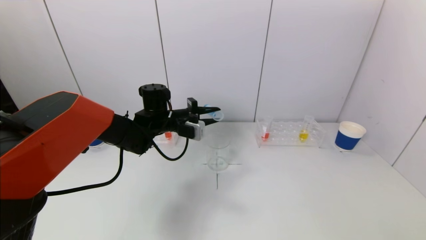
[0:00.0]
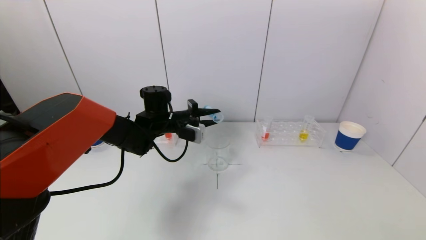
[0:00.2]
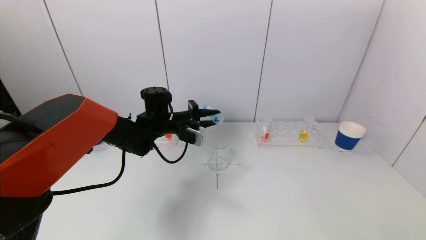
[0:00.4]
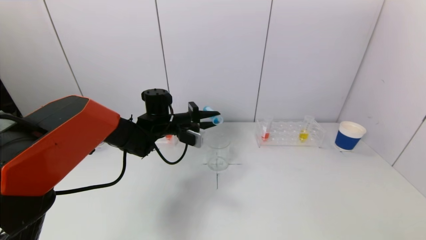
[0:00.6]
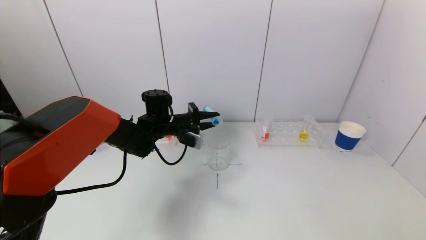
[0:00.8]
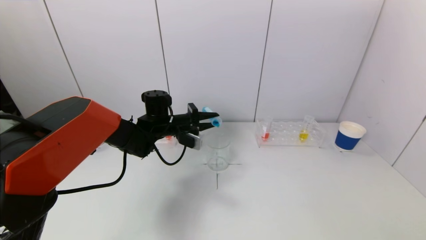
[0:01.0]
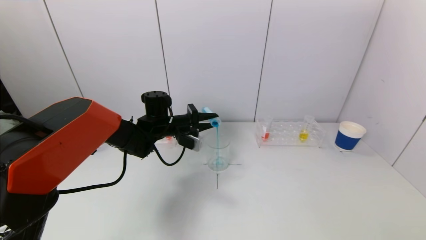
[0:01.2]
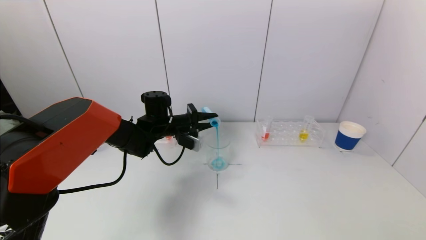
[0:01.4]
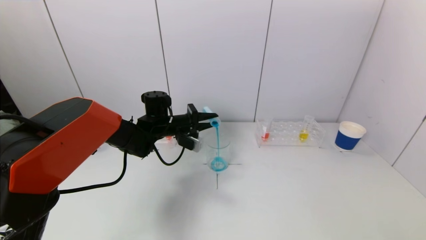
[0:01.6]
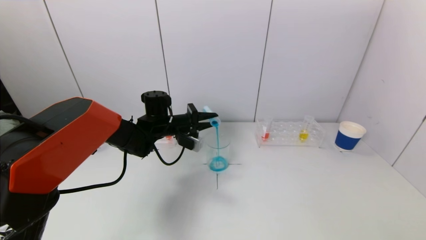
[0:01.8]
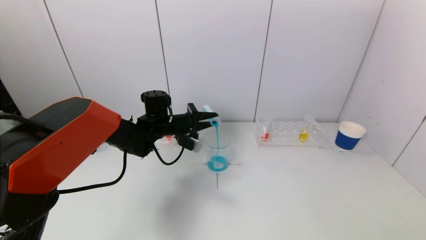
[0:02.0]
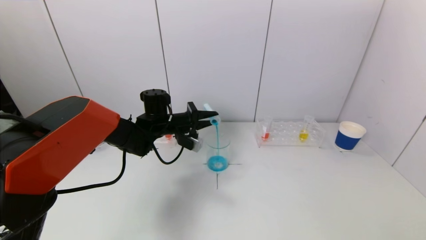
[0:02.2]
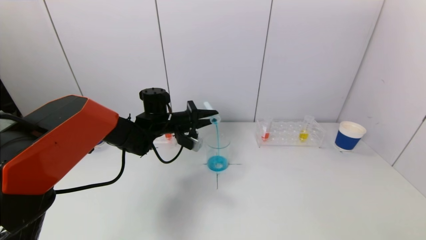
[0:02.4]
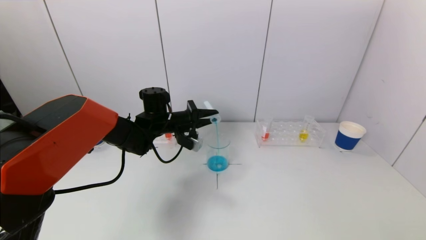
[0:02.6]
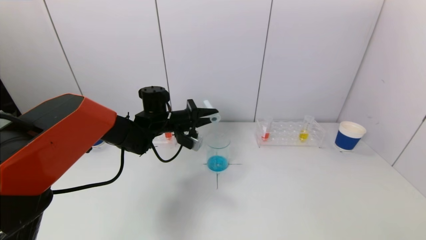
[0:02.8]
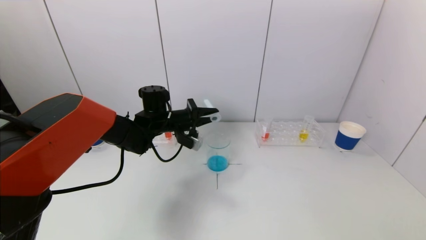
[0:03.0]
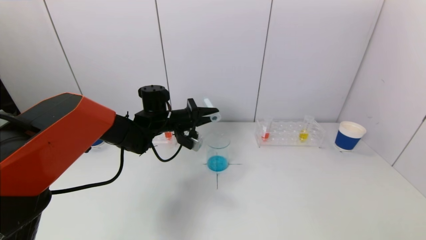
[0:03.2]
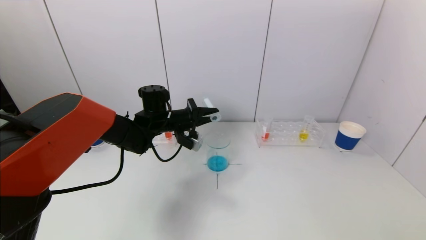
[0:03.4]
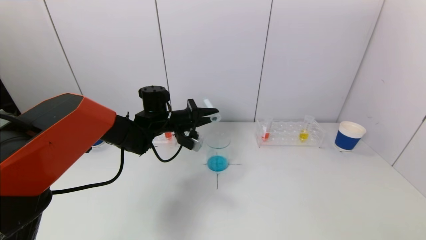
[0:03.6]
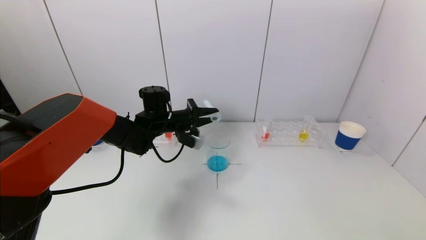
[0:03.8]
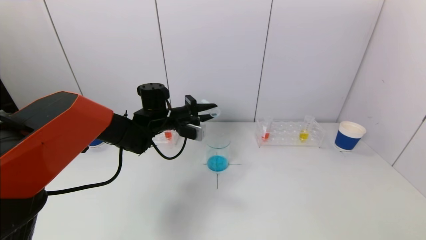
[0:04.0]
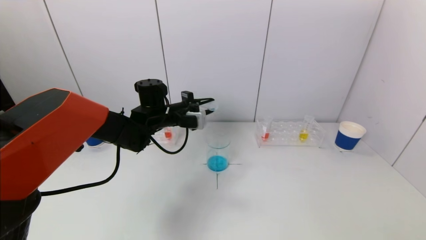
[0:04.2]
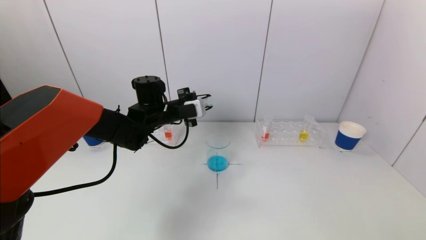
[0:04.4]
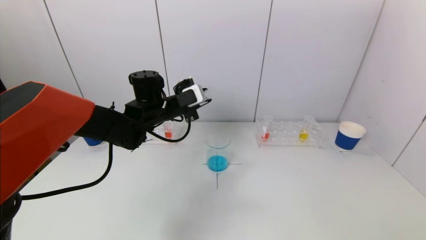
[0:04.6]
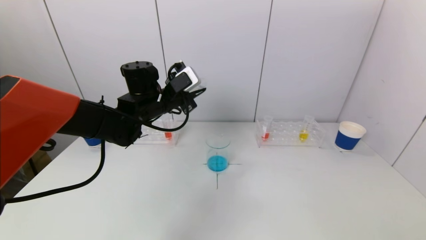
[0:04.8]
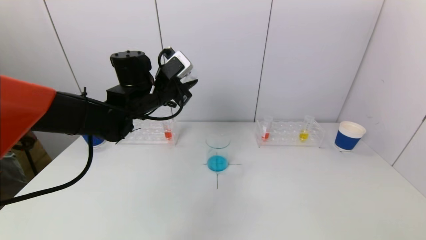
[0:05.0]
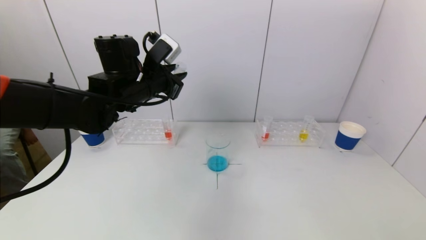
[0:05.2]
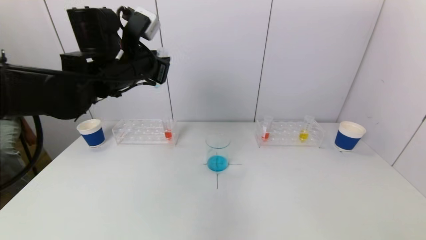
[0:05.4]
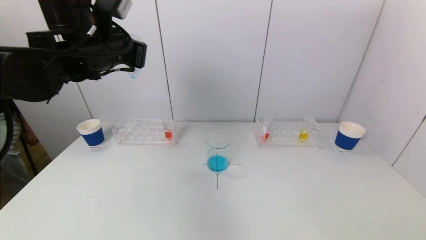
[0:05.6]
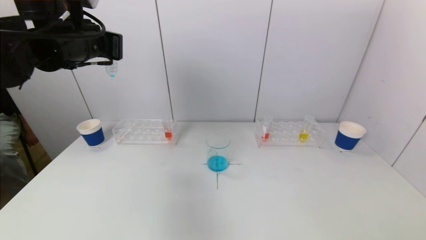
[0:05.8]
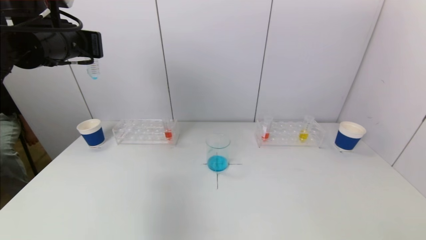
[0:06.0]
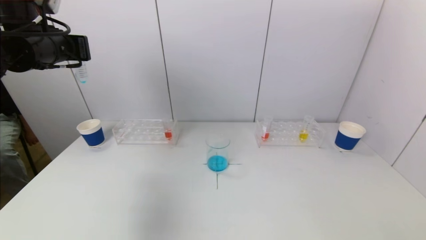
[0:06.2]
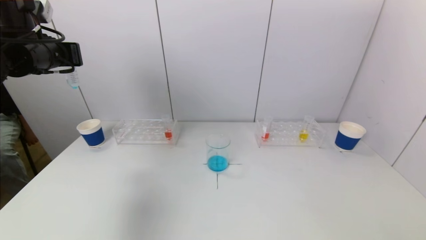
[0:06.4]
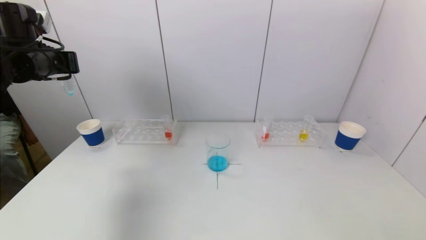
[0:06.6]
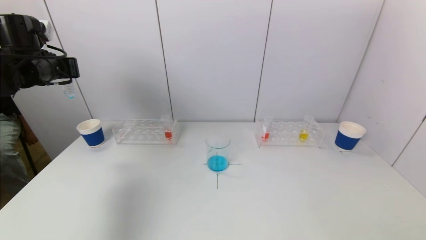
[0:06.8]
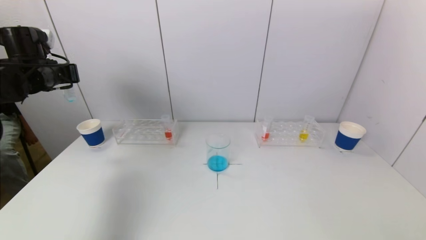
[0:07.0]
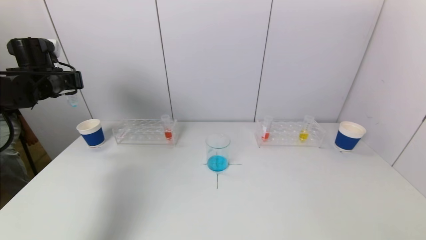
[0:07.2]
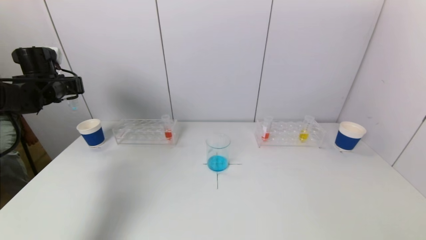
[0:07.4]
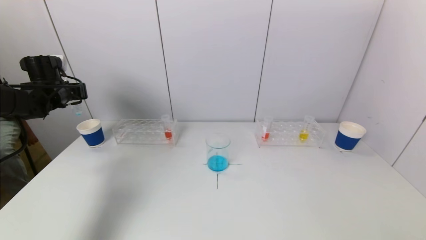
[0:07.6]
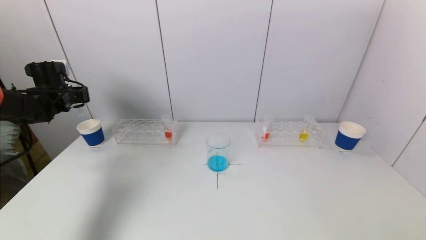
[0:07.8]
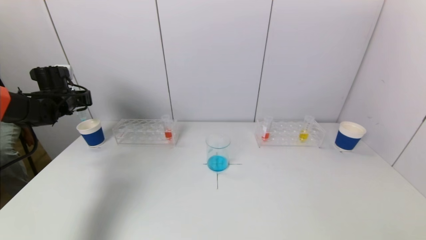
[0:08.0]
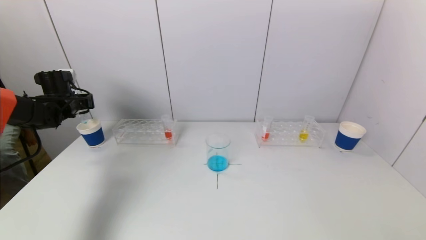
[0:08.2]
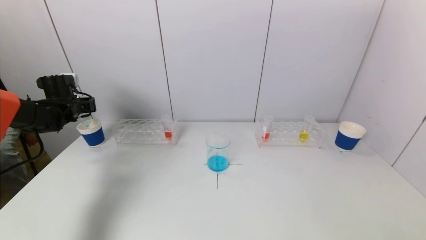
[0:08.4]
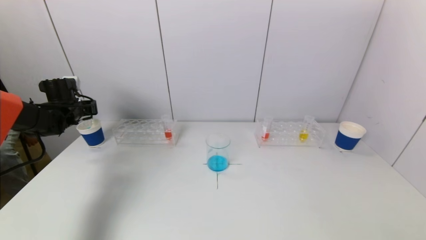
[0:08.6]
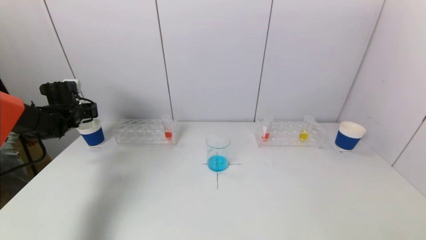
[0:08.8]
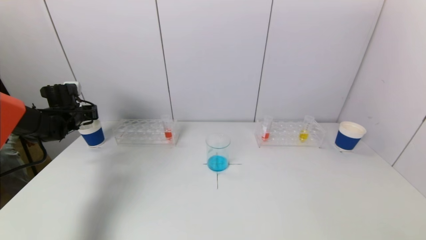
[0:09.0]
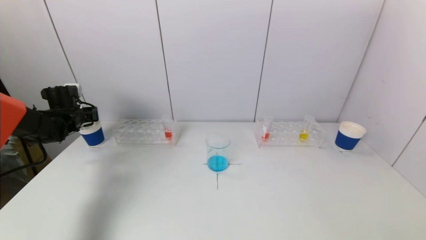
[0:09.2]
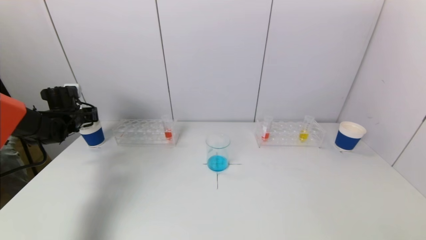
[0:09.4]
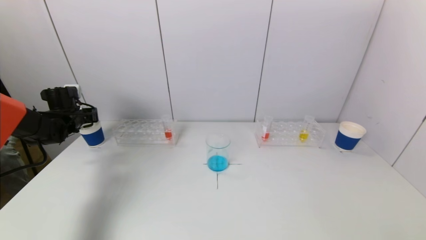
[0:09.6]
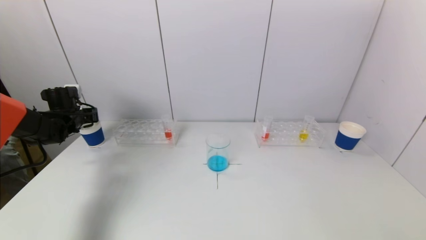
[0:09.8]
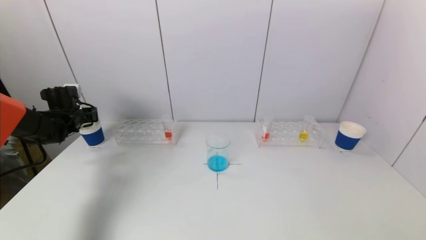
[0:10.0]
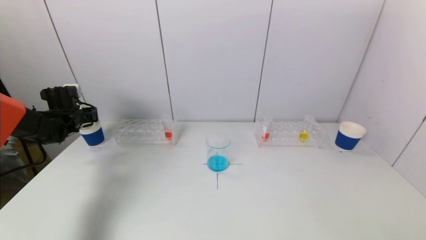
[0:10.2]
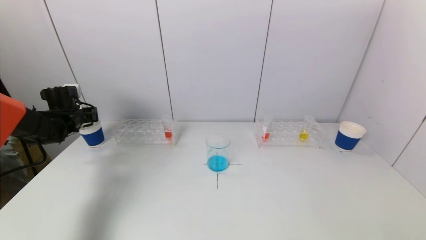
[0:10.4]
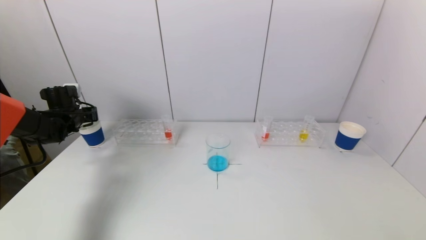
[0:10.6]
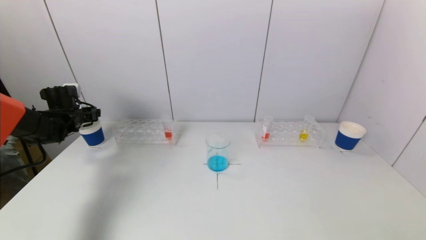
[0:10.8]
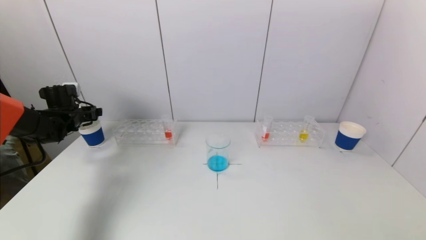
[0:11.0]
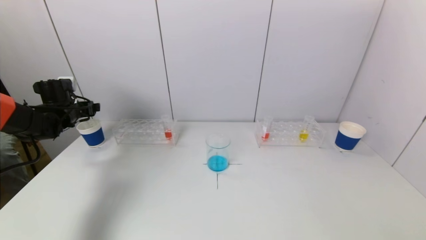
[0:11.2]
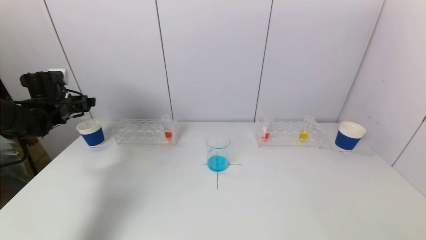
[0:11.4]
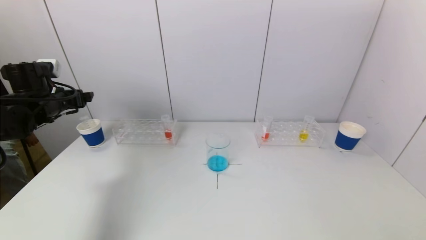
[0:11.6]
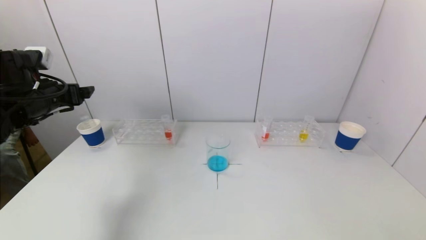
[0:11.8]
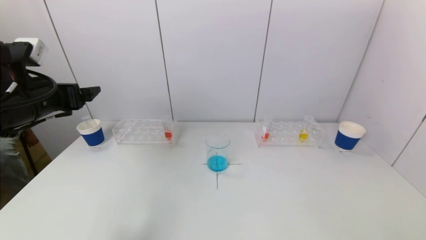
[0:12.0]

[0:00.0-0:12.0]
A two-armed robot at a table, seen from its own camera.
Task of the whole recording: pick up a test tube with pigment on left test tube rack and a test tube with pigment on right test tube rack by grippers and pour them into the beaker.
Step, 0:00.0 to 0:03.8: Pour the blue reagent into the graduated cylinder with the left gripper.
Step, 0:04.0 to 0:10.6: Place the test tube into the paper cup with the left gripper.
0:00.0 to 0:01.6: The grippers move only a little.
0:01.6 to 0:03.0: The grippers stay close to where they were, moving slightly.
0:04.4 to 0:06.0: The left gripper goes about 25 cm upward, to the left and backward.
0:06.0 to 0:07.6: The left gripper shifts about 20 cm to the left, downward and forward.
0:07.6 to 0:09.0: The left gripper moves downward, approximately 10 cm.
0:09.0 to 0:10.4: Both grippers stay put.
0:10.4 to 0:12.0: The left gripper is displaced backward, upward and to the right by approximately 25 cm, and opens its fingers.

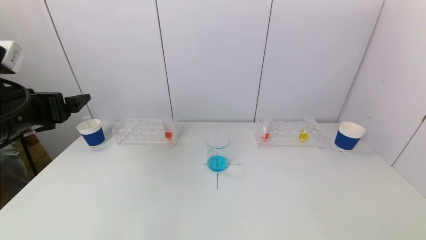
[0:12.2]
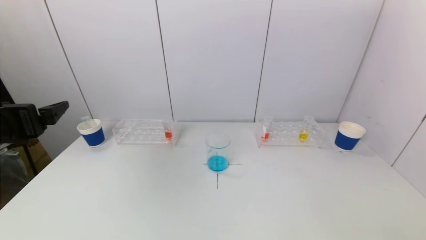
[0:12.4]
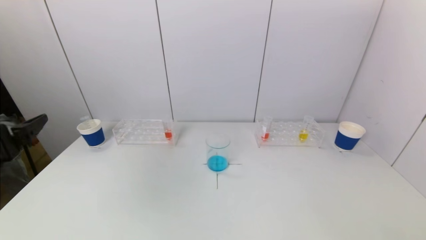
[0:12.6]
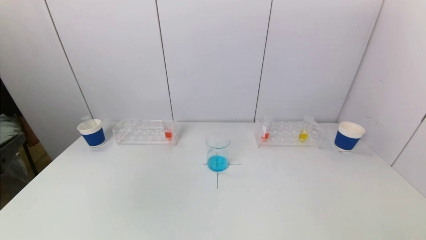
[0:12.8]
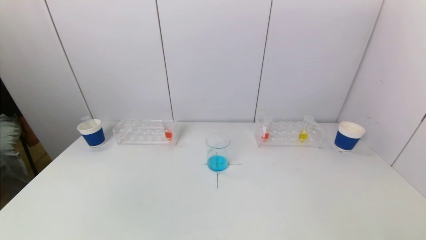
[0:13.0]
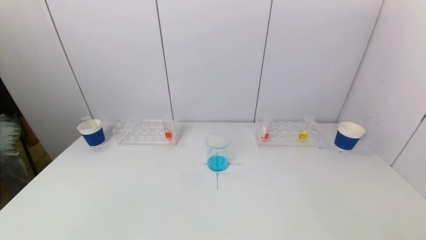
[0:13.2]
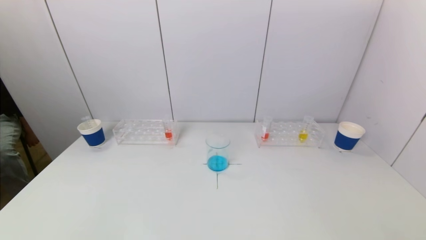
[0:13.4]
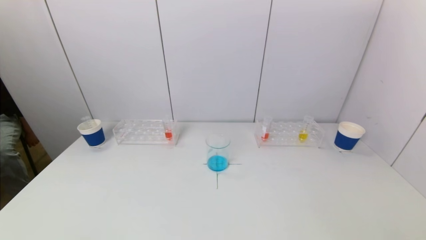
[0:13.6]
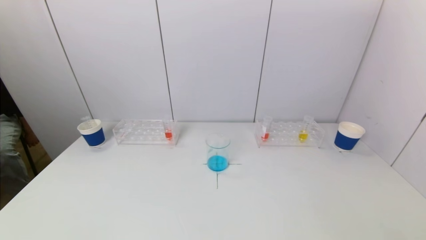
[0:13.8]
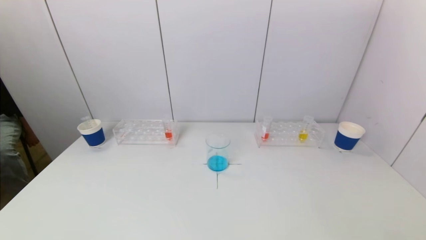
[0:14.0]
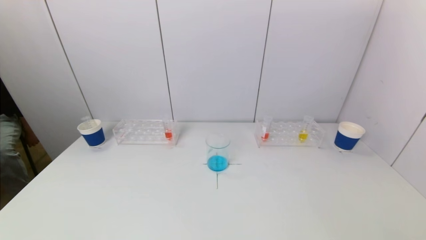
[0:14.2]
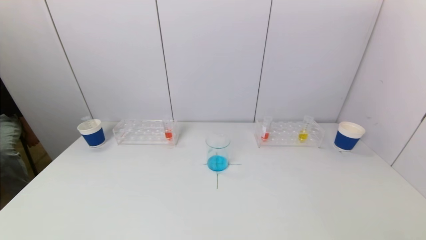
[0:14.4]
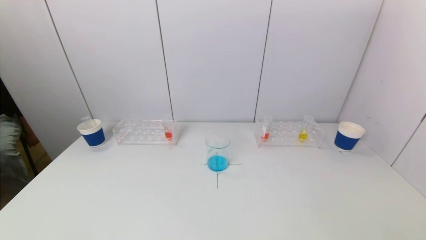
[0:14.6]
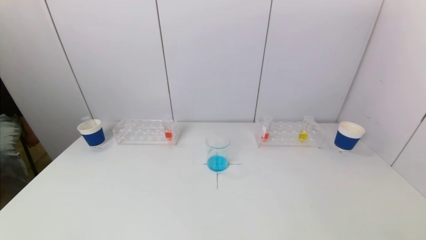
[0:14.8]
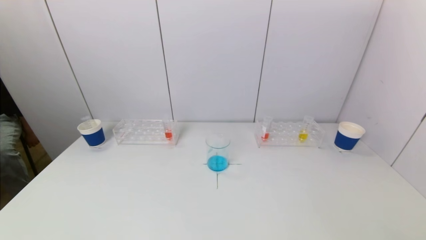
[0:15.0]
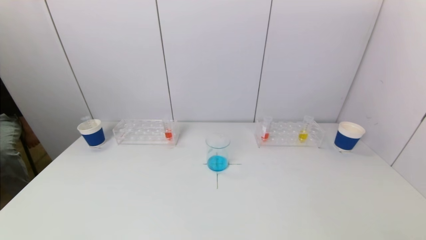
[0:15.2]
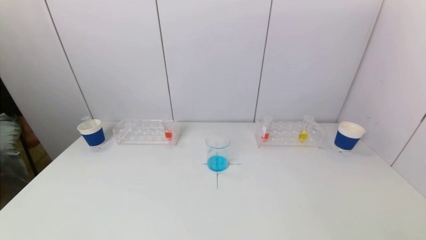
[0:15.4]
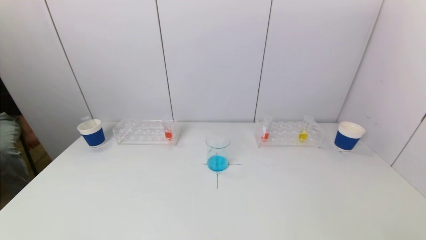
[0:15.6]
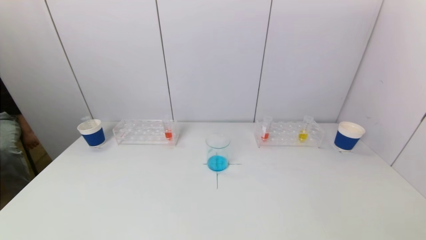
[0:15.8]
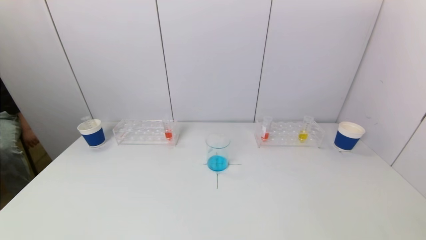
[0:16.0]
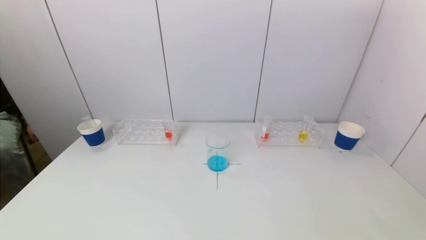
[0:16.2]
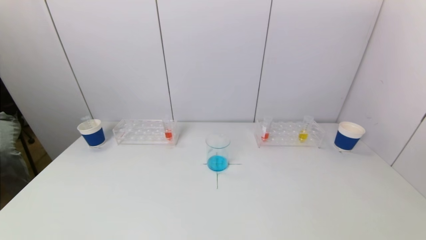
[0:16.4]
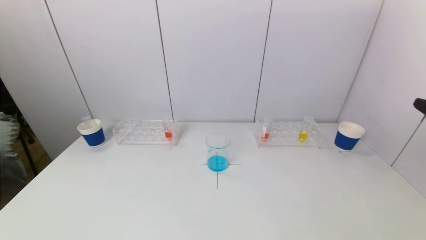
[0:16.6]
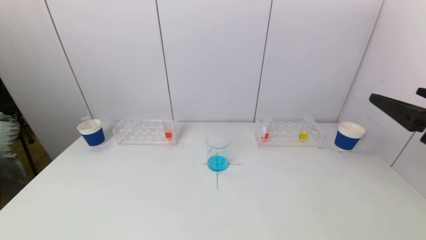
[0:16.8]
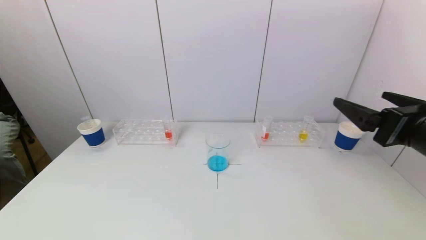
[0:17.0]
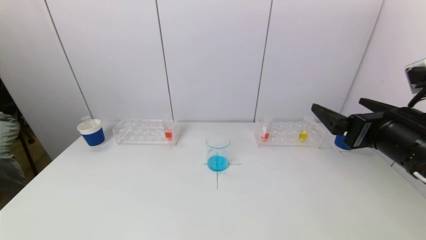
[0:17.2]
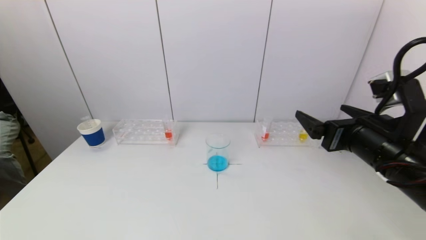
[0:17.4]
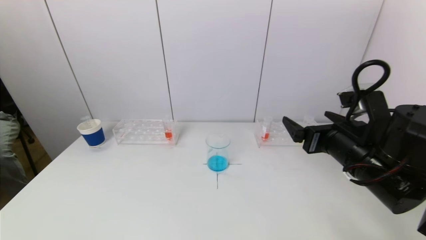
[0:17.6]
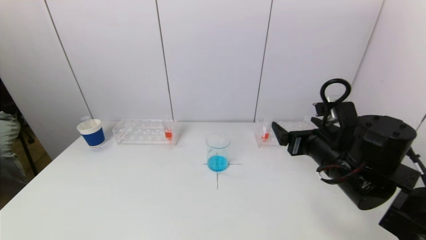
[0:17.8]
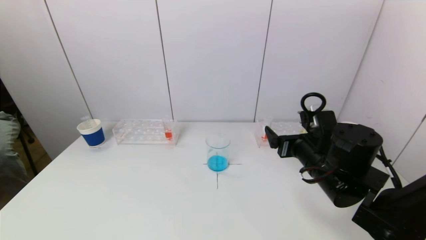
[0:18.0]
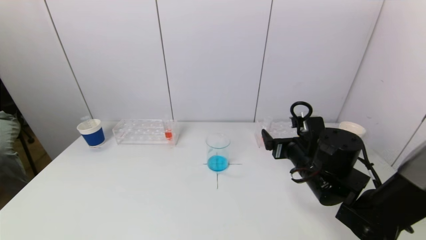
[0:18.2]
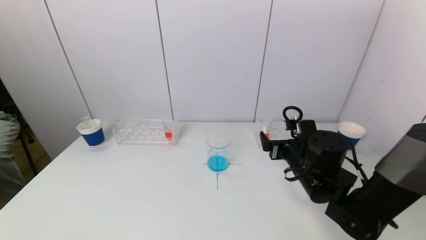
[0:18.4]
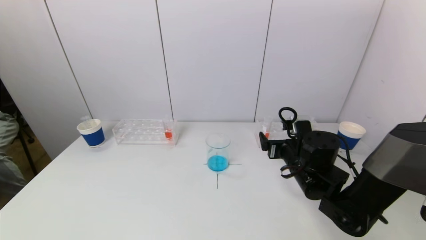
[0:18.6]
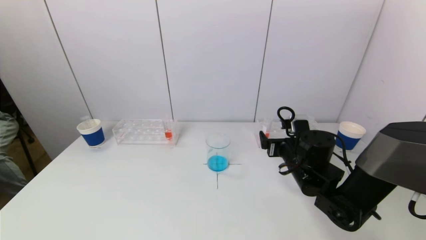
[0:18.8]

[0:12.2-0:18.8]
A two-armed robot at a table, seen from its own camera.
Task of the whole recording: pick up a test tube with pigment on left test tube rack and a test tube with pigment on right test tube rack by grippers and pour them into the beaker.
0:12.2 to 0:13.8: The left gripper goes some 30 cm backward and downward.
0:15.4 to 0:17.2: The right gripper heads forward, upward and to the left, covering some 25 cm.
0:17.2 to 0:18.8: The right gripper heads downward and forward, covering roughly 20 cm.
